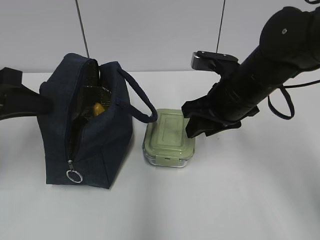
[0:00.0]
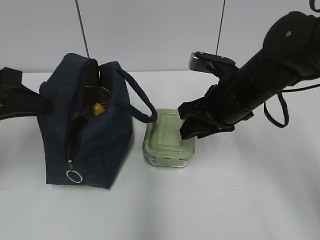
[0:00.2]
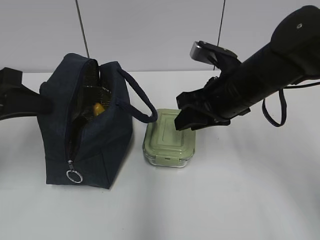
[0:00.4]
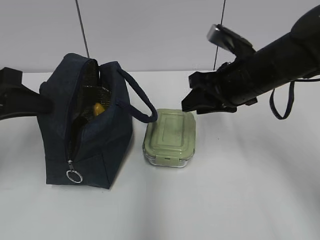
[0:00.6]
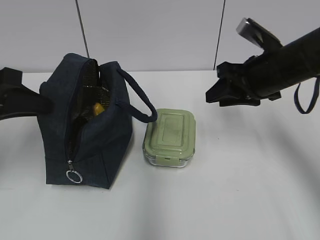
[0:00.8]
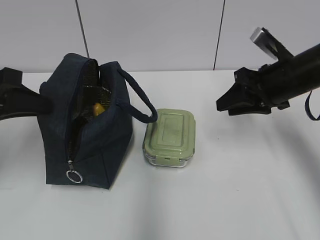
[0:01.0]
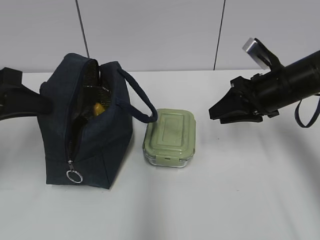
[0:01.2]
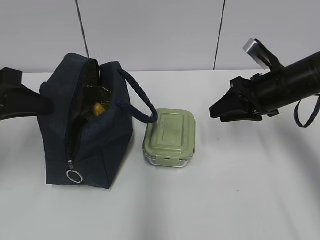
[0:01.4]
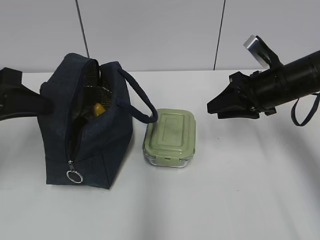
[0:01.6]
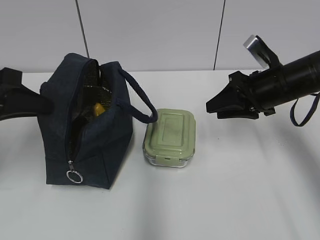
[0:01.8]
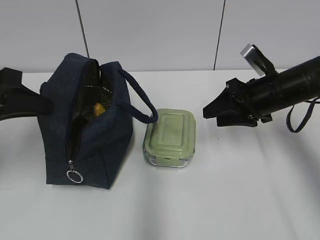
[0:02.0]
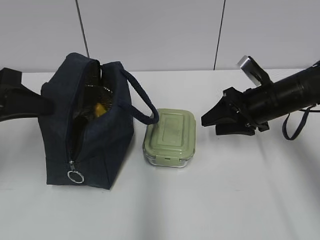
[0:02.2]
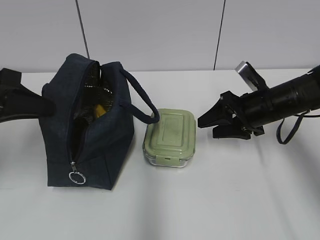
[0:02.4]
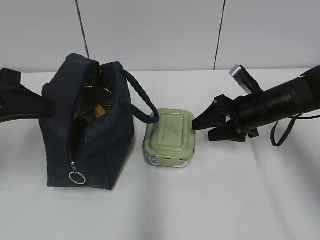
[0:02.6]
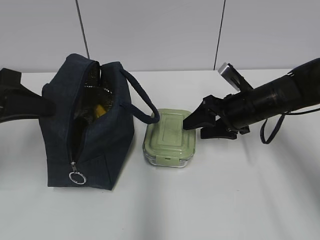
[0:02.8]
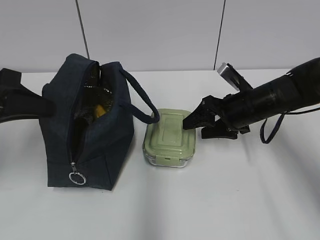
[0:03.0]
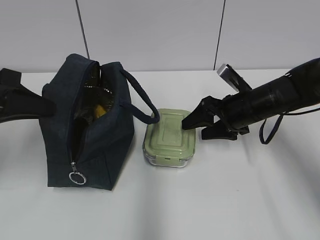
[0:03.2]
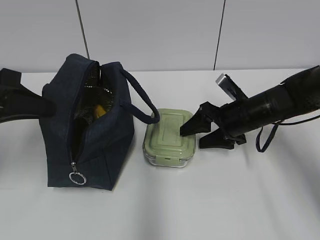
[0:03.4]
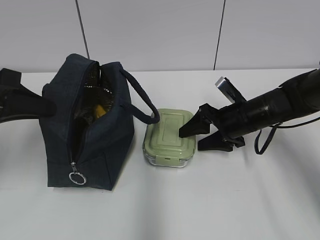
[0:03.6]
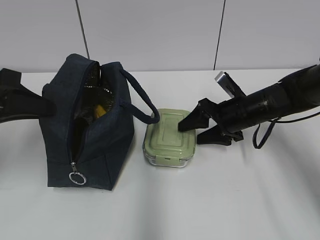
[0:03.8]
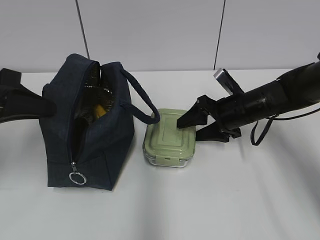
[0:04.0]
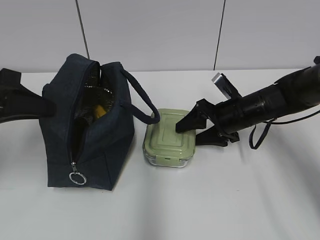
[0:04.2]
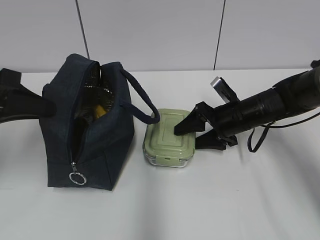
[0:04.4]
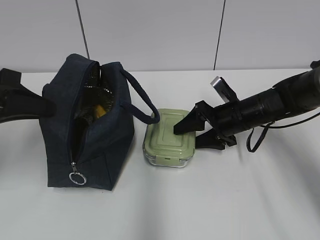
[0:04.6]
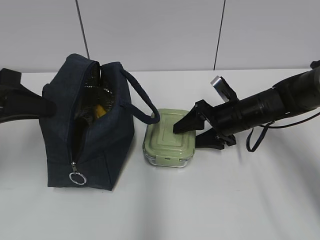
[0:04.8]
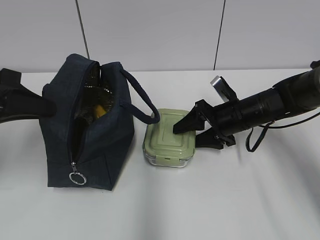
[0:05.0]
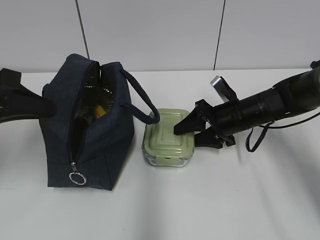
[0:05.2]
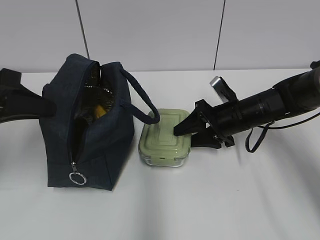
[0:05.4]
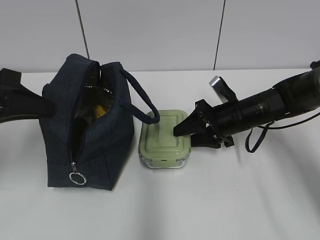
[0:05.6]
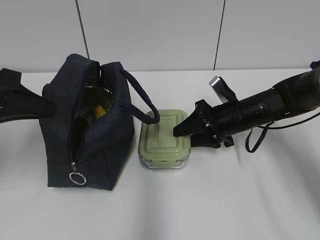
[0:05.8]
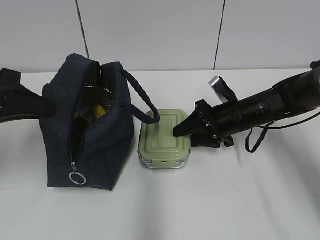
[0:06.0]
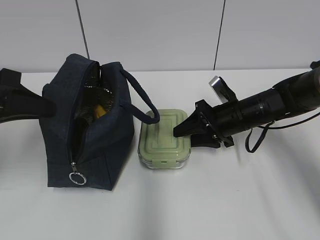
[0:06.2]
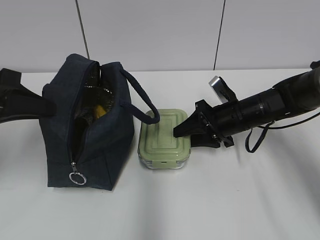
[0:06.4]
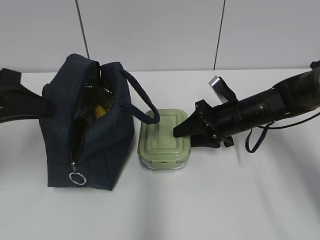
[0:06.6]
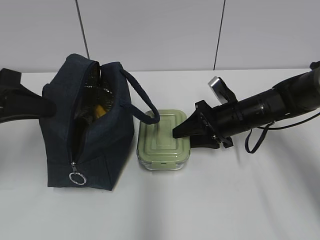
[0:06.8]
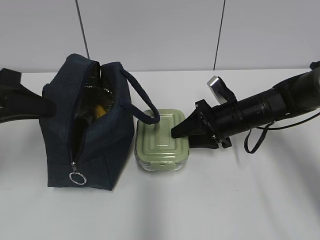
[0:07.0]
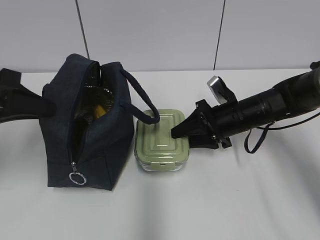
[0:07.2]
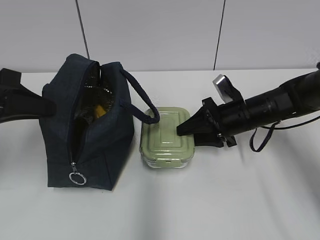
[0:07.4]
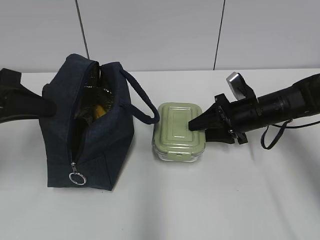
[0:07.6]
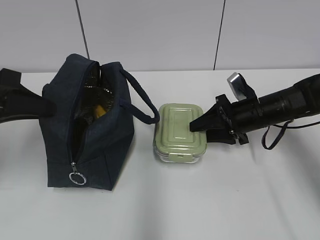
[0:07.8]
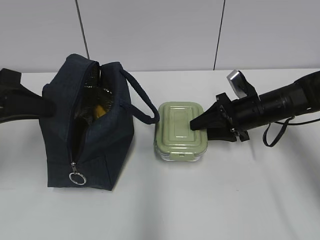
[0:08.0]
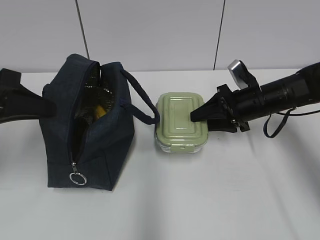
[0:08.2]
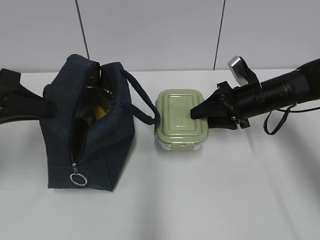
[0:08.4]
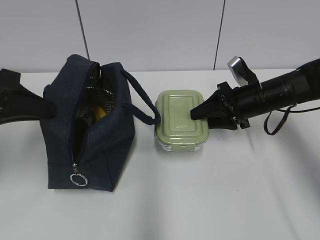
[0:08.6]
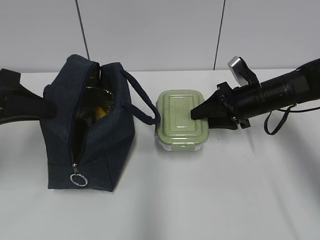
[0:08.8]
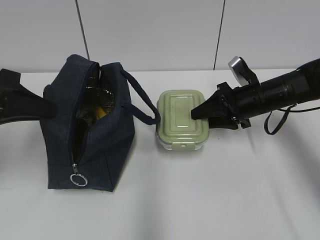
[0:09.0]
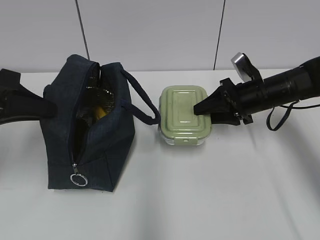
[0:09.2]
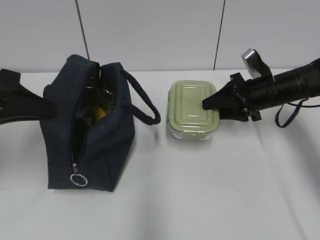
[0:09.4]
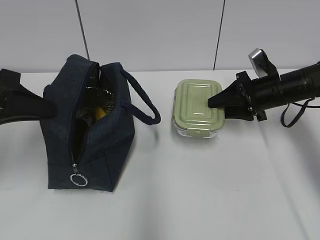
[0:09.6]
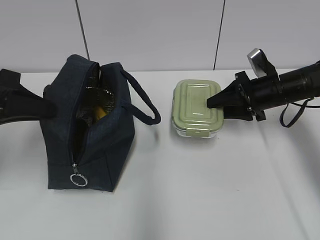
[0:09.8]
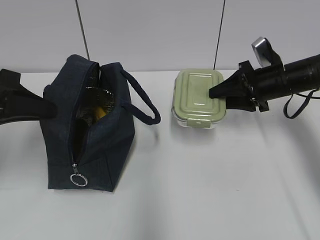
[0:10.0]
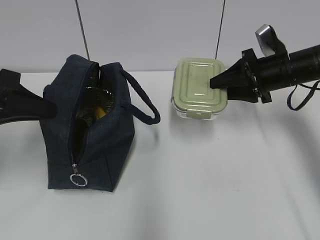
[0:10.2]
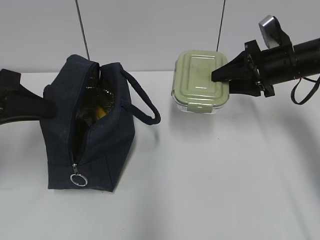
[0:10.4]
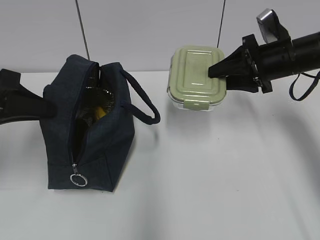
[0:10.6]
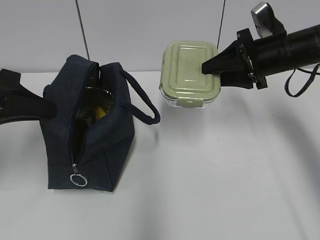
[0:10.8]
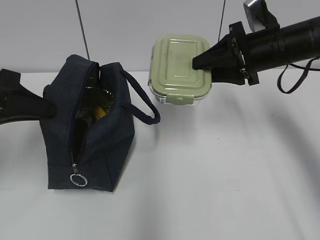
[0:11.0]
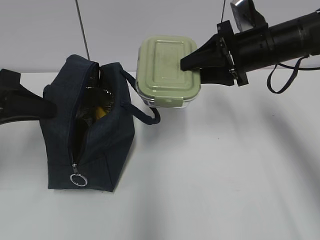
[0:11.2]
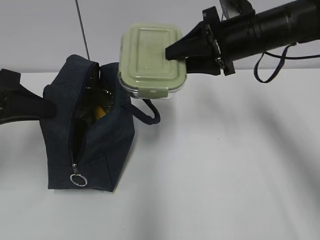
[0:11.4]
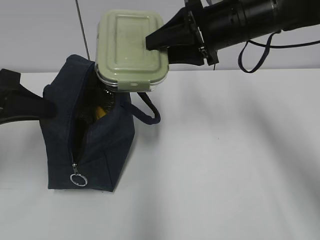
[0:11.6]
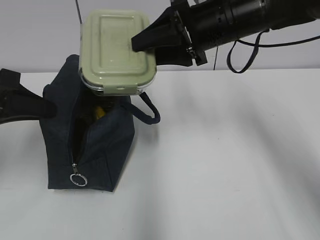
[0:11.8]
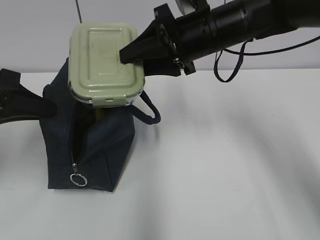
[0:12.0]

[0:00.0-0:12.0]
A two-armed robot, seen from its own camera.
Step, 0:00.0 to 0:06.8: Grab the lunch box with your right hand.
0:00.0 to 0:01.6: The right gripper shifts about 10 cm to the right.
0:01.6 to 0:03.0: The right gripper moves downward, roughly 5 cm, and opens.
0:03.0 to 0:04.4: The grippers make only small movements.
0:04.4 to 0:06.0: Neither gripper changes place.
0:06.0 to 0:09.0: The grippers move only a little.
0:09.0 to 0:10.4: The right gripper heads upward, covering about 5 cm.
0:10.4 to 0:12.0: The right gripper moves to the left and upward, some 15 cm.

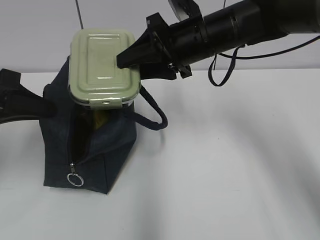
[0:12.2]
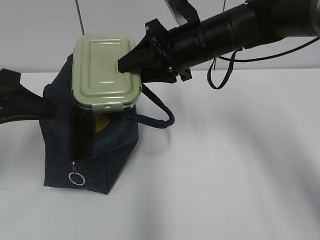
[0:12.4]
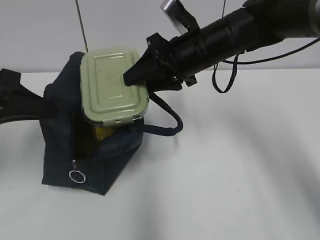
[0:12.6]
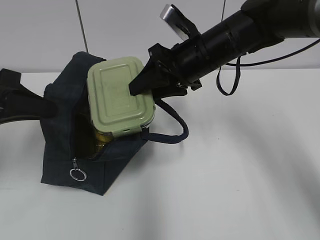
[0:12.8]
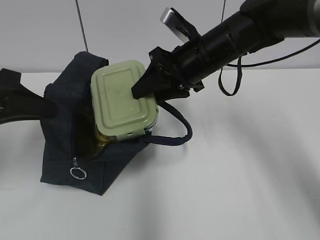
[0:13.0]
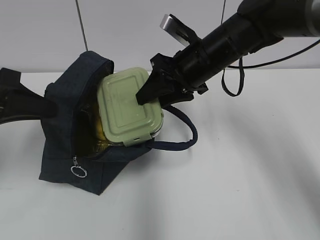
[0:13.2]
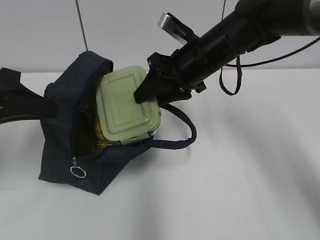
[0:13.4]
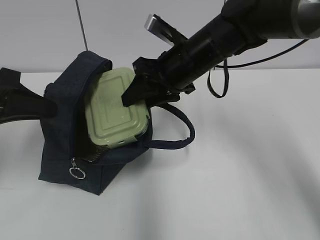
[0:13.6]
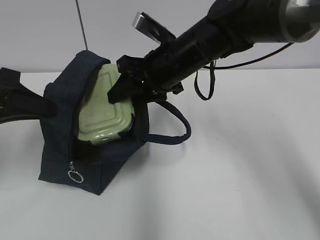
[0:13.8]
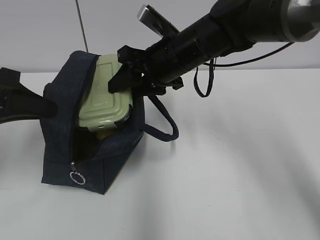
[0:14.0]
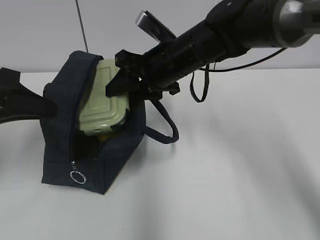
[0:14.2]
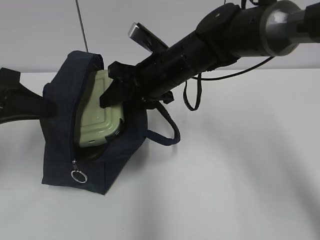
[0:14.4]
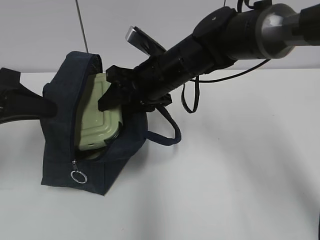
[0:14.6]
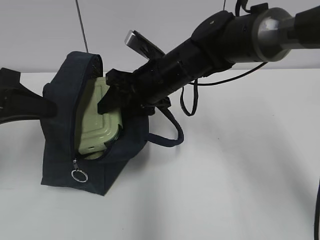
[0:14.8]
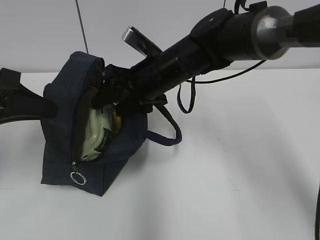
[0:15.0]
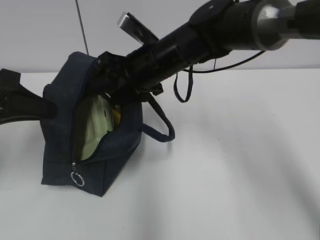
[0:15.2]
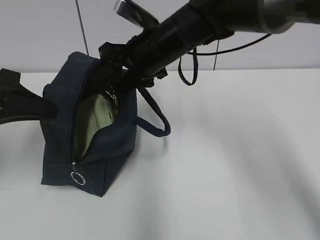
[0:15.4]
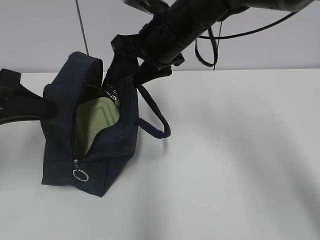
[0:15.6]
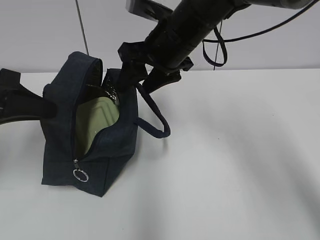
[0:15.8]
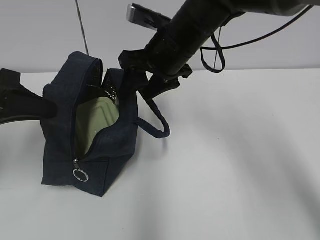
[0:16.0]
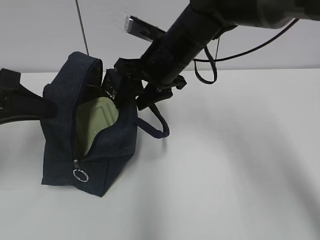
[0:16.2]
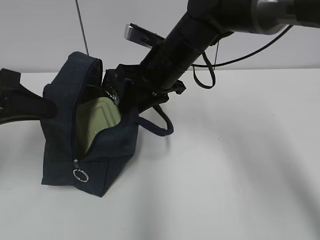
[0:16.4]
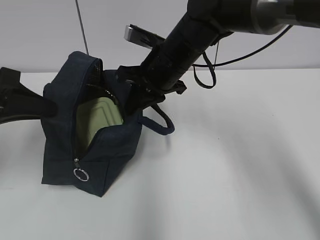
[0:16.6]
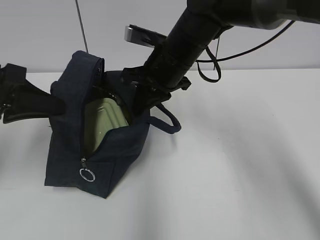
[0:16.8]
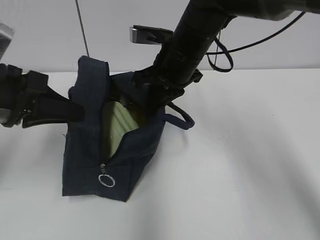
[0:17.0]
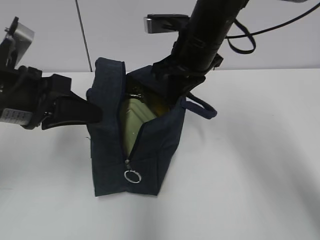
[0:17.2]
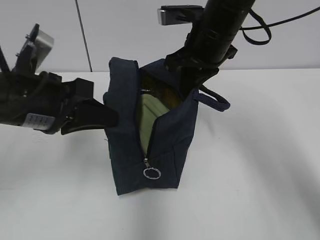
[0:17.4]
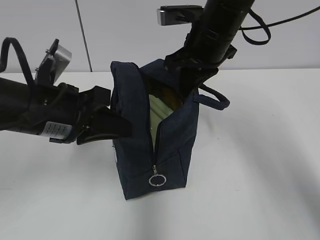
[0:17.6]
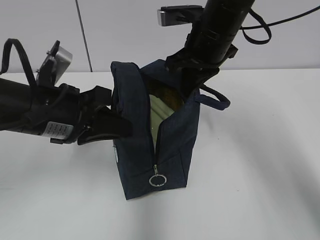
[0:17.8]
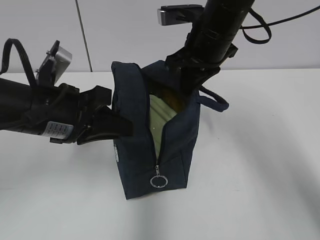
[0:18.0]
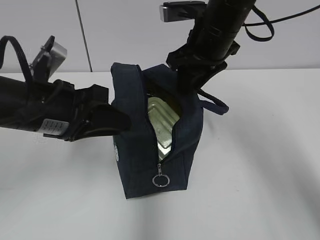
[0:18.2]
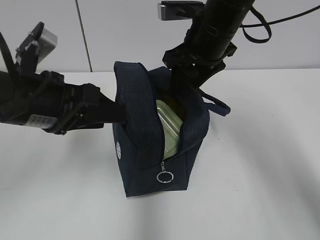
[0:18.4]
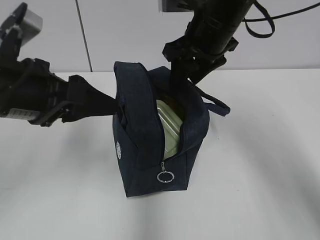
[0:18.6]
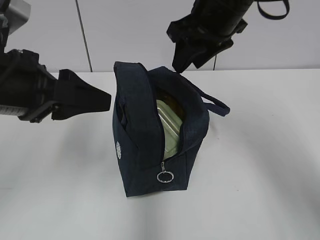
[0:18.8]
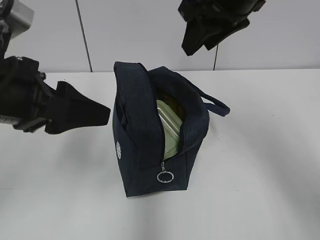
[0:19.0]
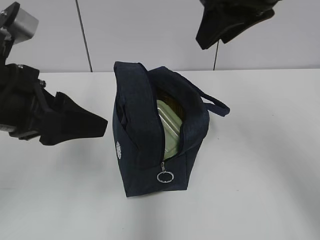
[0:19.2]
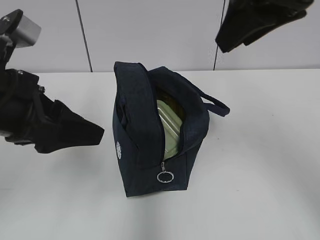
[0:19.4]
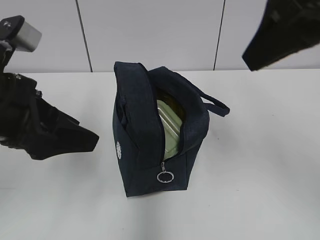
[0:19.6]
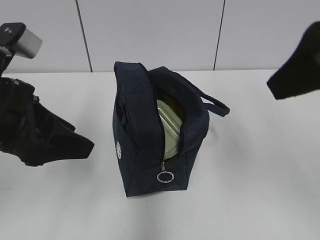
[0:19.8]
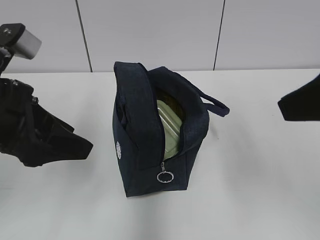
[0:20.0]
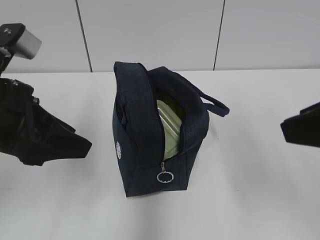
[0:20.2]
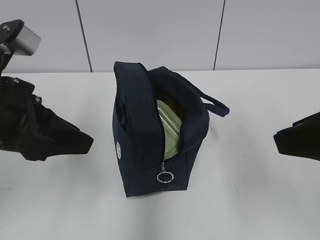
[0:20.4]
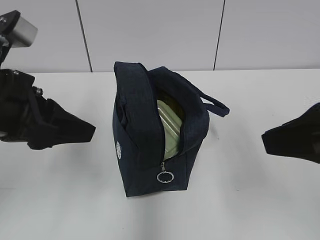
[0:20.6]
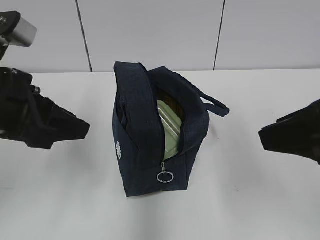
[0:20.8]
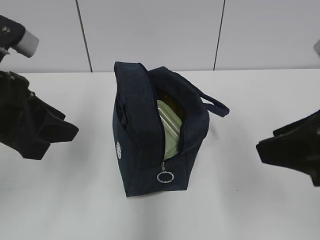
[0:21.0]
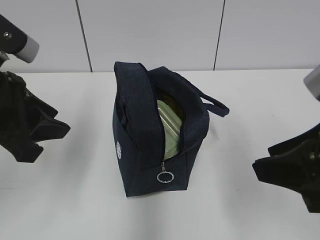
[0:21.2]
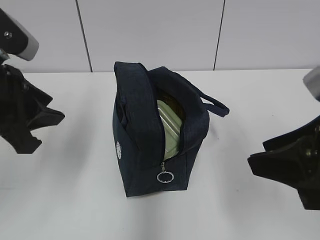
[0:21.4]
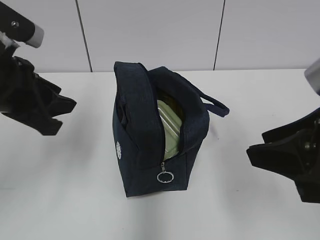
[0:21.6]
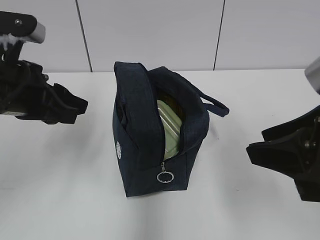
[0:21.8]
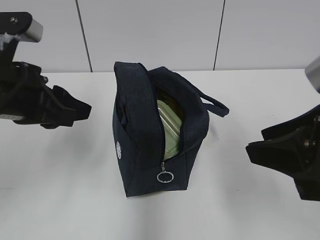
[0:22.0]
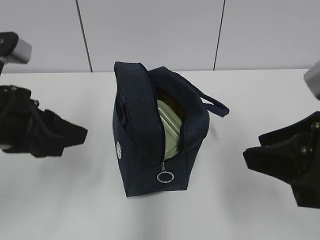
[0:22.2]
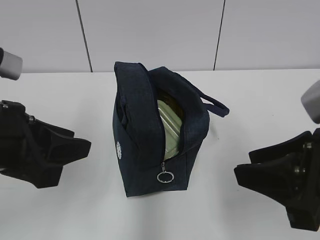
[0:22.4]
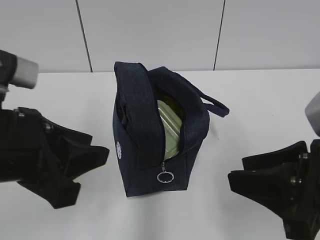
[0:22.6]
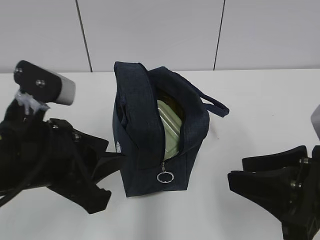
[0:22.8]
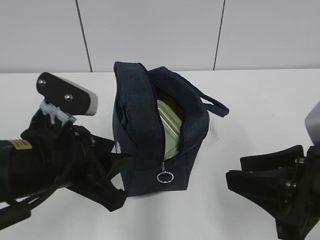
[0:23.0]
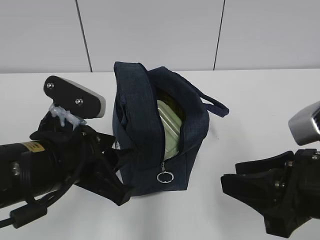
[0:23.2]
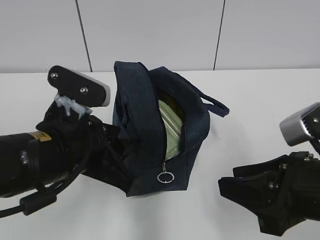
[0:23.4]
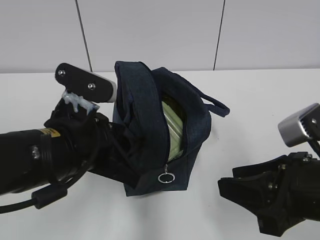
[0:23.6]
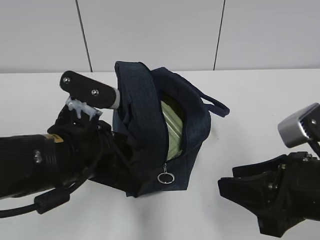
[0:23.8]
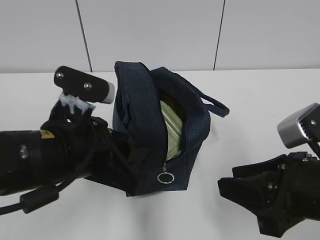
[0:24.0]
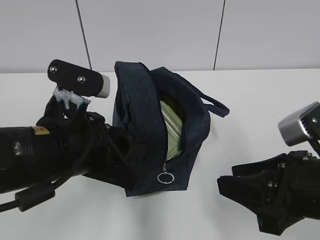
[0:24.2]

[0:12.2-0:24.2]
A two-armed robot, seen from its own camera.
Step, 0:15.4 to 0:16.8: Grab the lunch bag with your right hand.
Step, 0:17.0 to 0:18.2: Move the lunch bag to the right.
0:12.2 to 0:13.8: The grippers move only a little.
0:13.8 to 0:15.2: There are only small adjustments of the grippers.
0:15.2 to 0:16.6: The right gripper closes its fingers.
0:16.6 to 0:18.2: The right gripper is displaced to the right and upward by approximately 10 cm, and opens. The left gripper heads to the right, covering roughly 10 cm, and opens up.
0:18.2 to 0:19.8: The right gripper heads backward and upward, covering some 25 cm. The left gripper ends up some 5 cm from where it was, and opens its fingers.
0:19.8 to 0:21.2: The right gripper shifts about 10 cm downward.
0:21.2 to 0:22.6: The left gripper is displaced backward by some 5 cm.
0:22.6 to 0:24.2: The left gripper goes some 5 cm to the right.
